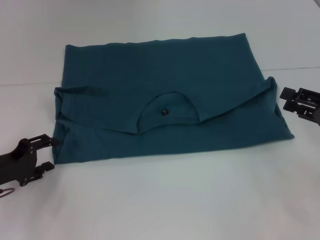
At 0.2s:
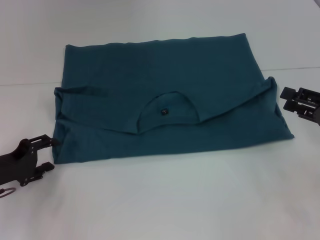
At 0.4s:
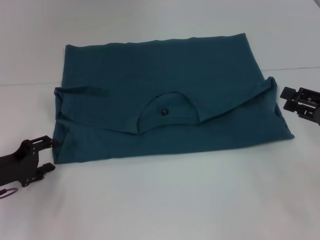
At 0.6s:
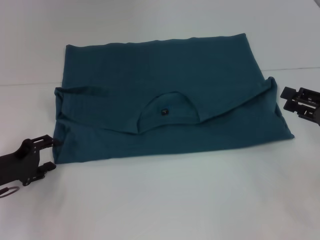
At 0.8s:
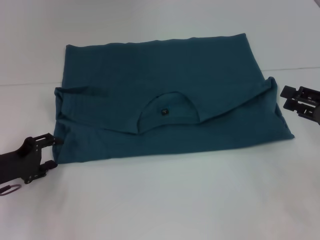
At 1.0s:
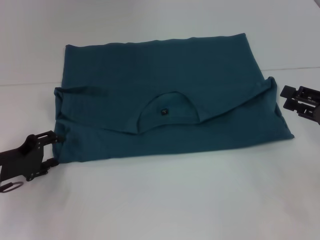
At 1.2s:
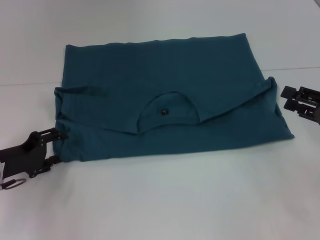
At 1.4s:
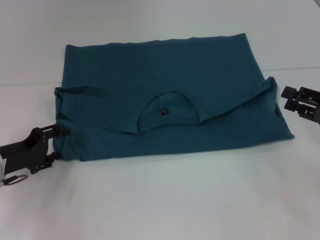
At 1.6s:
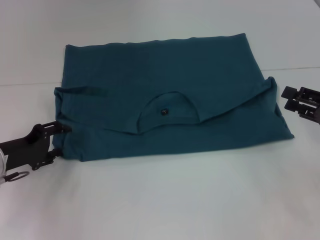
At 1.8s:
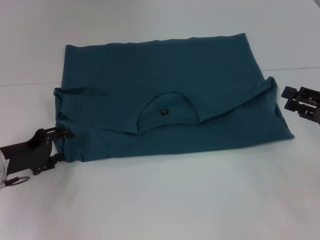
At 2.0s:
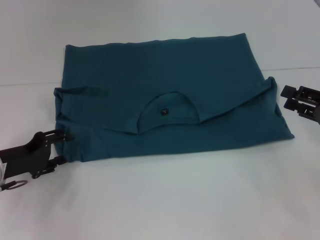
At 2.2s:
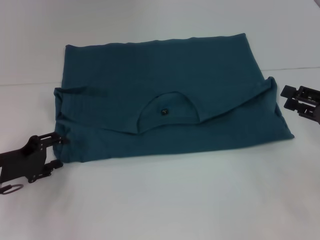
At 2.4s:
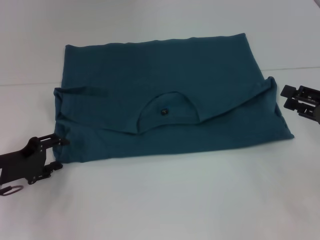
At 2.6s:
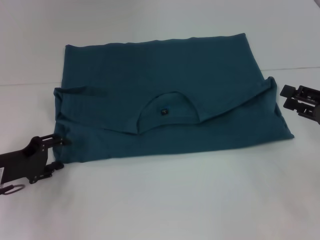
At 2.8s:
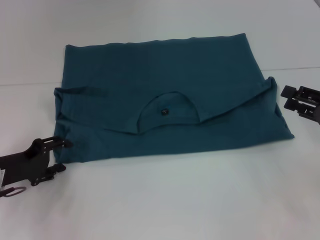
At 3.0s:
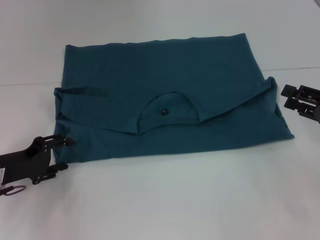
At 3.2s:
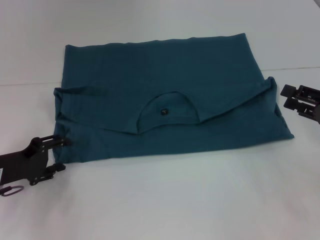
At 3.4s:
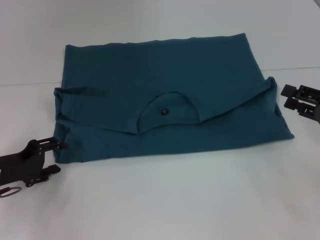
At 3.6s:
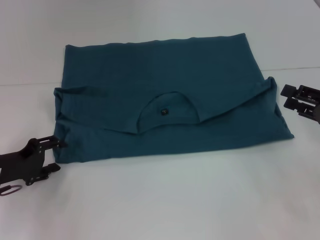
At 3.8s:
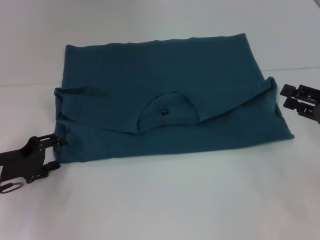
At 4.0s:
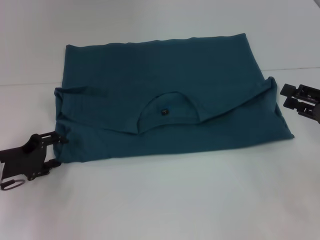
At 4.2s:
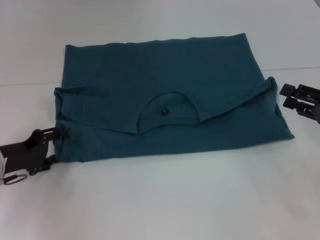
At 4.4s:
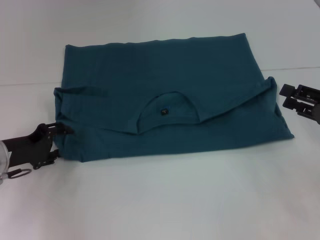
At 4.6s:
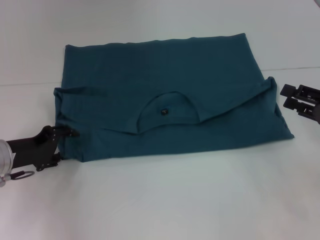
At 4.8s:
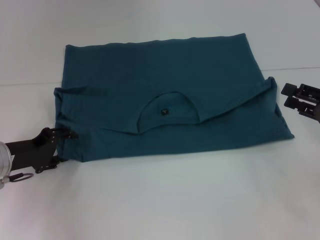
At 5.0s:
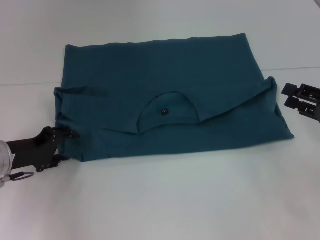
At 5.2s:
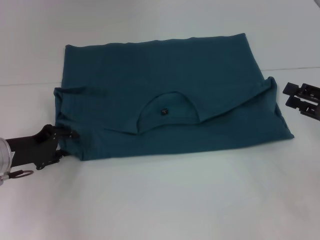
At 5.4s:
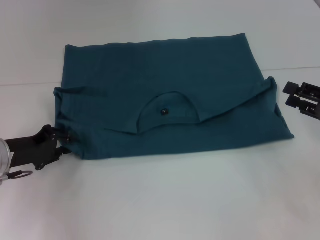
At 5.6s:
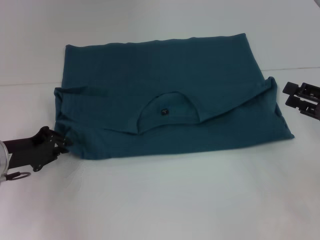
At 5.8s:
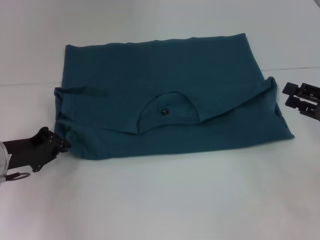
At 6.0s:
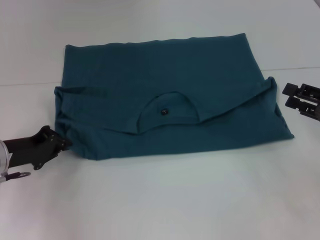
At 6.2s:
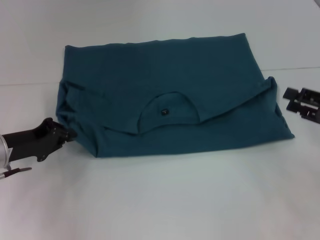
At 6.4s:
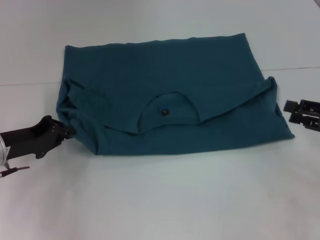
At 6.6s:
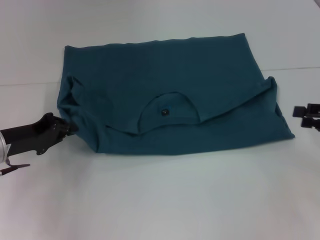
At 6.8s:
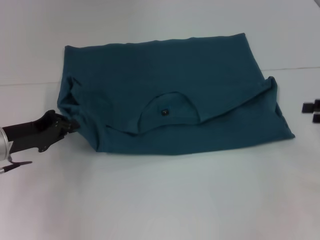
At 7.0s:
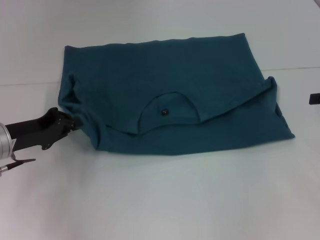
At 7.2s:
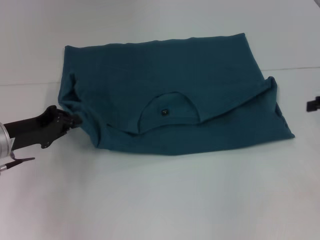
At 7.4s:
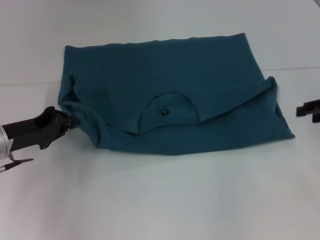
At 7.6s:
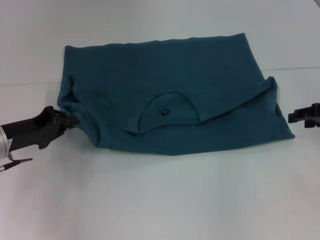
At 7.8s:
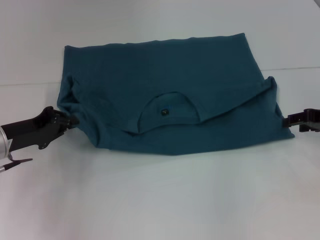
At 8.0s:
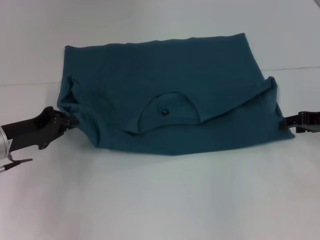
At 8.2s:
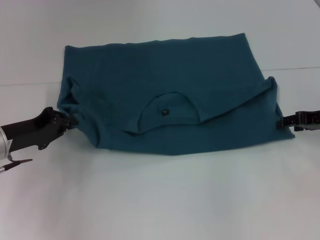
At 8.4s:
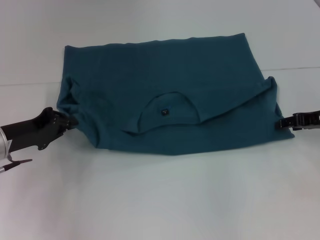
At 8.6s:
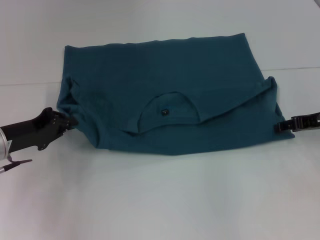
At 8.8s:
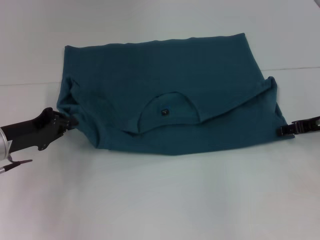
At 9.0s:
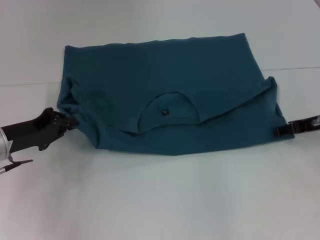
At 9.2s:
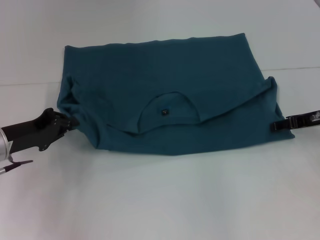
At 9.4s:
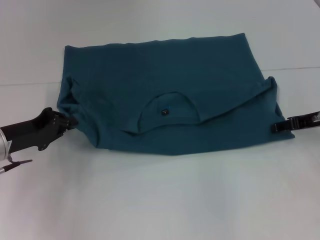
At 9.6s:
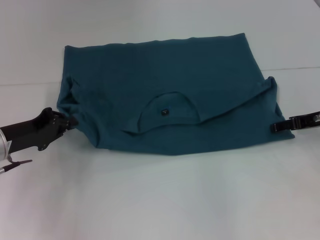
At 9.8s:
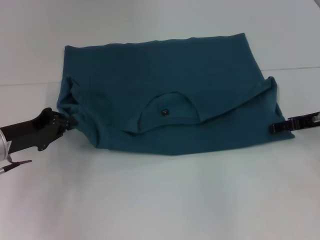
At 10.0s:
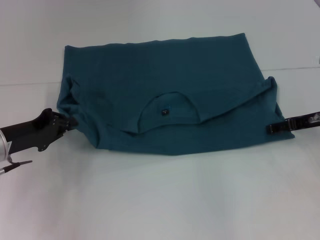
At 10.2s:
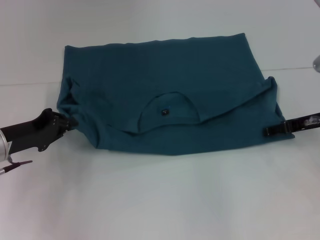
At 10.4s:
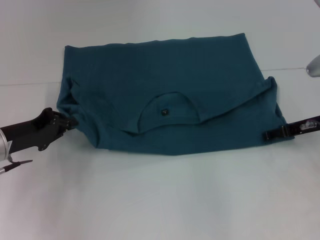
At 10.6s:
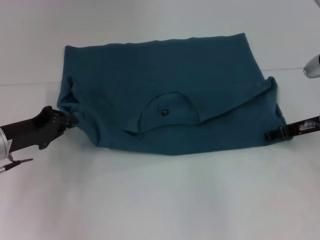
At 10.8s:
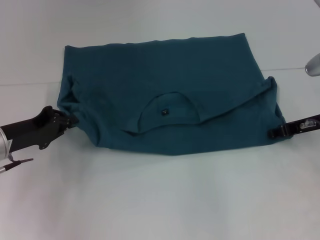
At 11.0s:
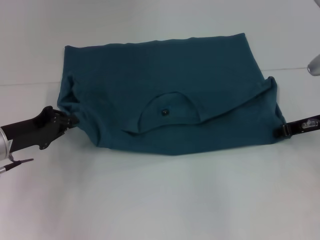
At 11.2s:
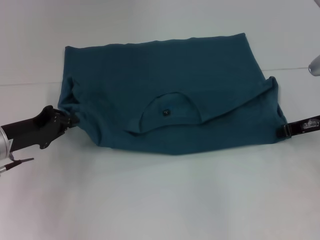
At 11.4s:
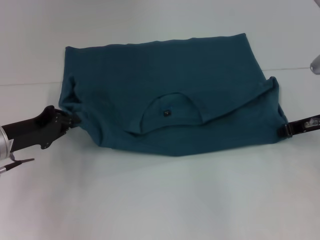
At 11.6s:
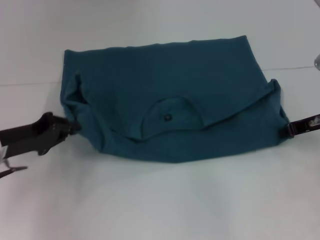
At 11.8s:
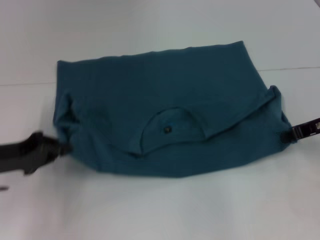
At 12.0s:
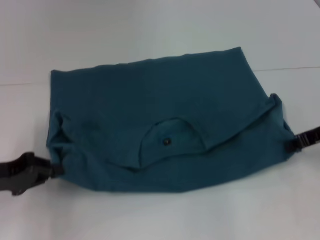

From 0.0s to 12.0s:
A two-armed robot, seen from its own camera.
From 0.0s to 4.4s: There are only small adjustments of the grippers.
From 4.4s to 6.0s: The left gripper closes.
From 6.0s to 7.6s: The right gripper moves forward, approximately 5 cm.
From 7.6s to 9.0s: The right gripper changes place by some 5 cm.
From 9.0s to 10.4s: The grippers move only a little.
From 10.4s to 12.0s: The left gripper heads backward, covering about 5 cm. The right gripper moves some 5 cm, and closes up.

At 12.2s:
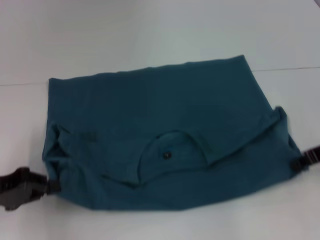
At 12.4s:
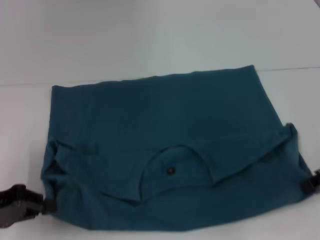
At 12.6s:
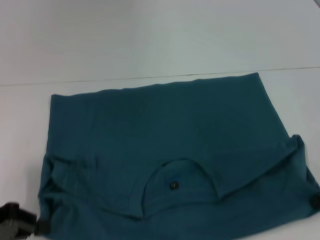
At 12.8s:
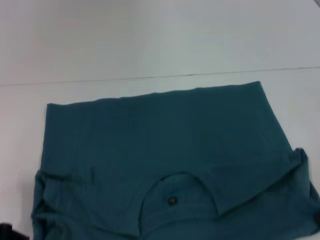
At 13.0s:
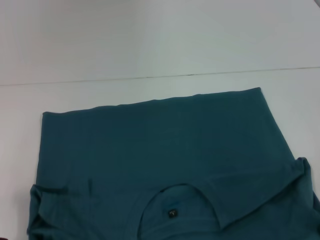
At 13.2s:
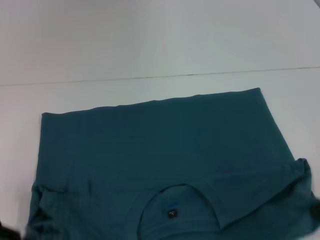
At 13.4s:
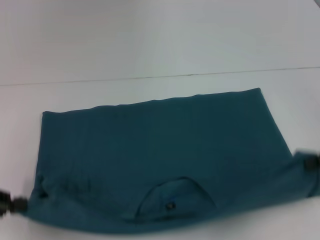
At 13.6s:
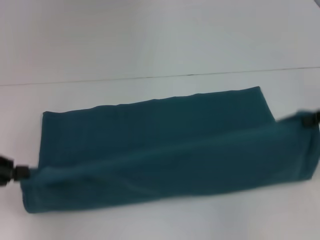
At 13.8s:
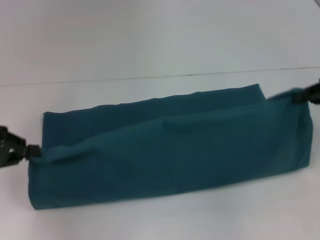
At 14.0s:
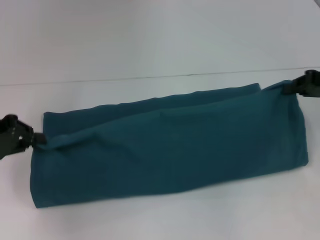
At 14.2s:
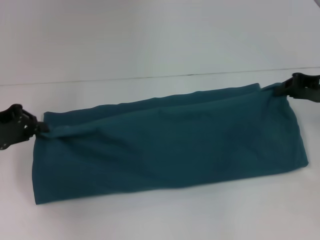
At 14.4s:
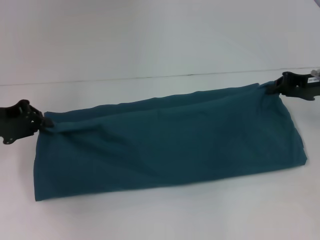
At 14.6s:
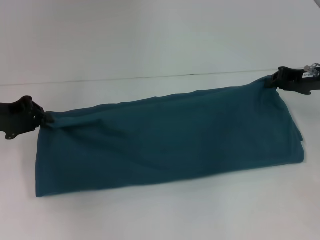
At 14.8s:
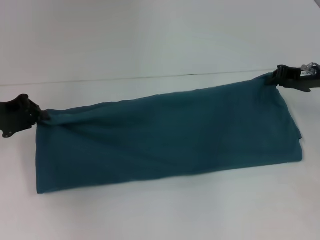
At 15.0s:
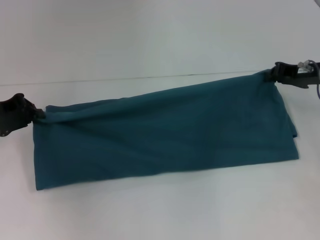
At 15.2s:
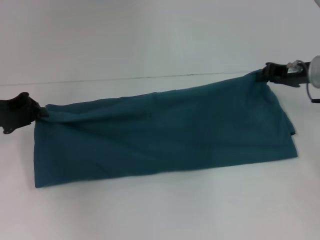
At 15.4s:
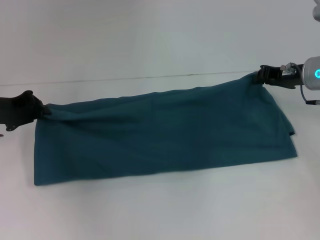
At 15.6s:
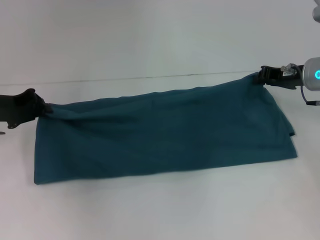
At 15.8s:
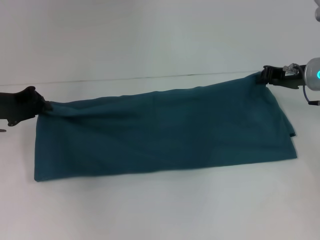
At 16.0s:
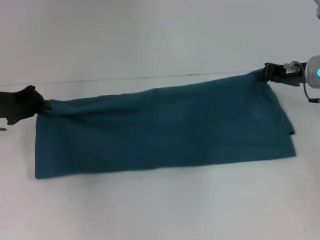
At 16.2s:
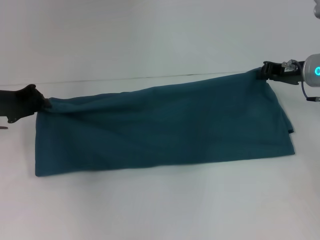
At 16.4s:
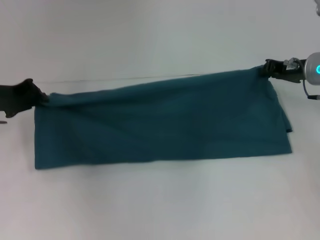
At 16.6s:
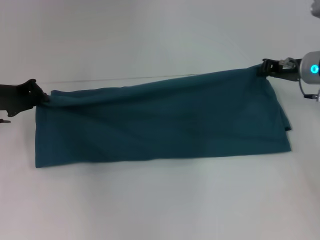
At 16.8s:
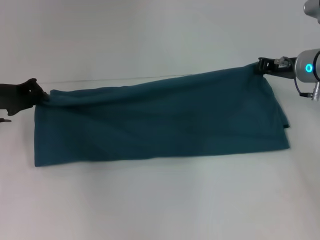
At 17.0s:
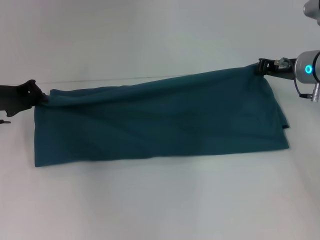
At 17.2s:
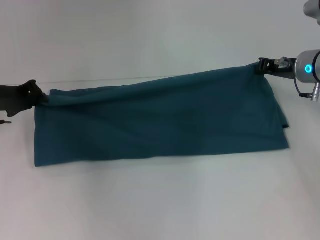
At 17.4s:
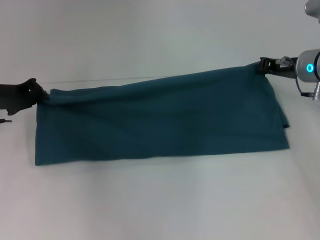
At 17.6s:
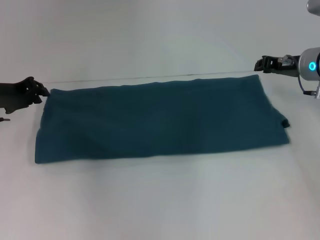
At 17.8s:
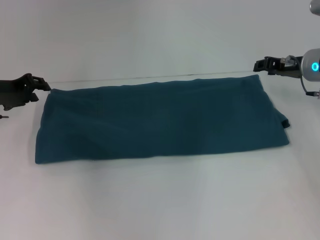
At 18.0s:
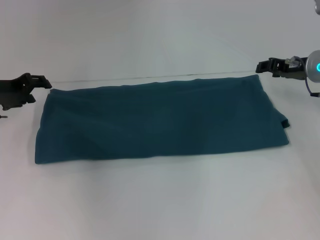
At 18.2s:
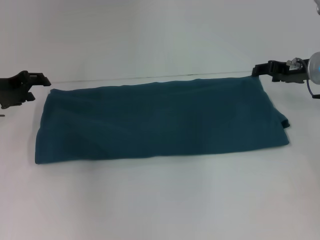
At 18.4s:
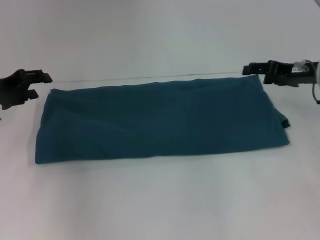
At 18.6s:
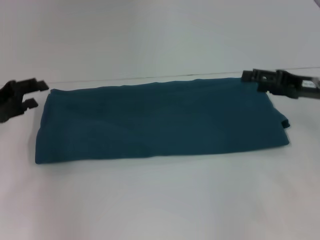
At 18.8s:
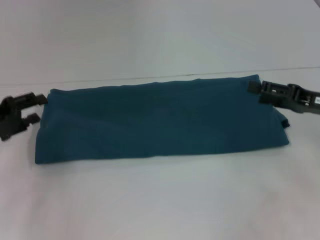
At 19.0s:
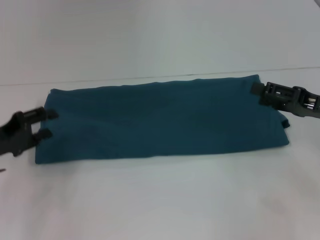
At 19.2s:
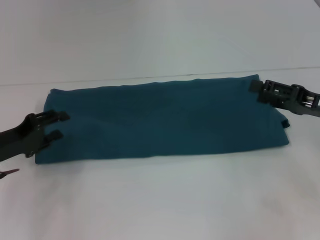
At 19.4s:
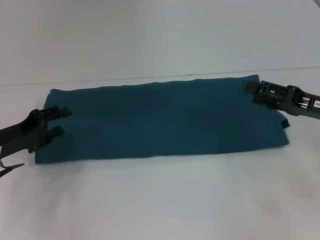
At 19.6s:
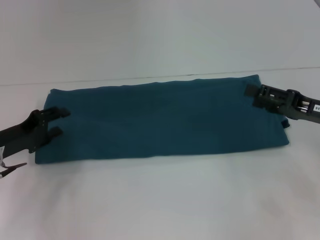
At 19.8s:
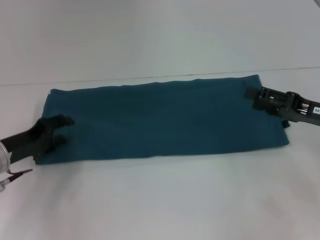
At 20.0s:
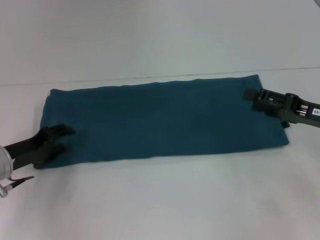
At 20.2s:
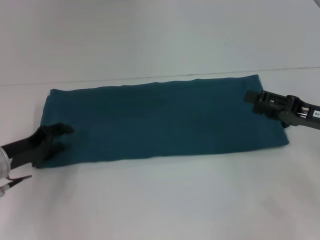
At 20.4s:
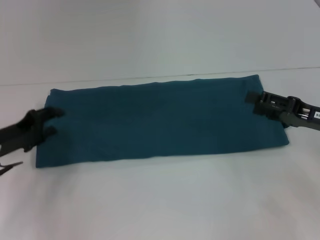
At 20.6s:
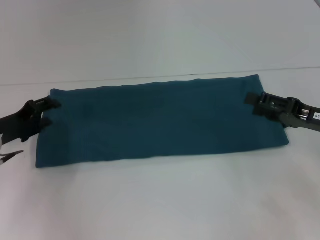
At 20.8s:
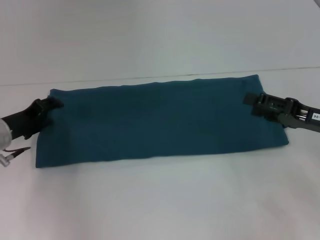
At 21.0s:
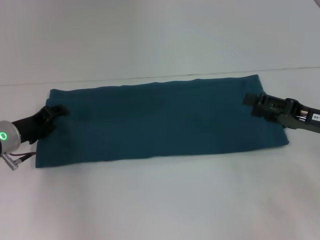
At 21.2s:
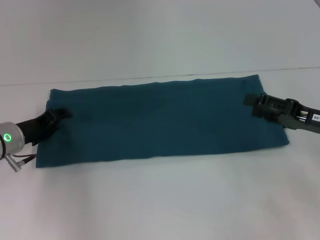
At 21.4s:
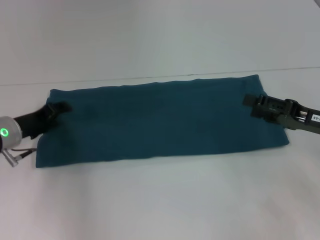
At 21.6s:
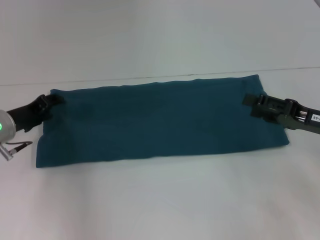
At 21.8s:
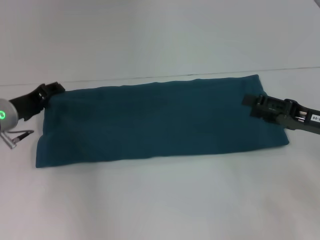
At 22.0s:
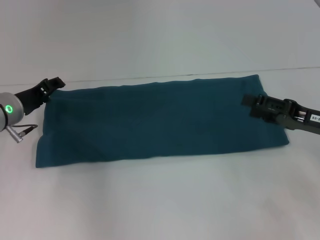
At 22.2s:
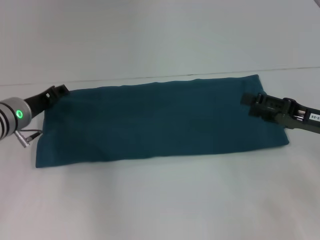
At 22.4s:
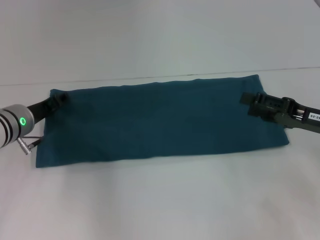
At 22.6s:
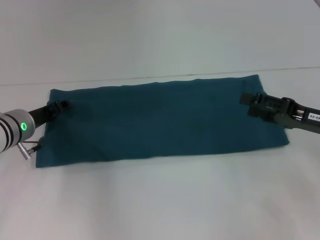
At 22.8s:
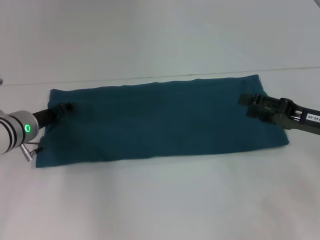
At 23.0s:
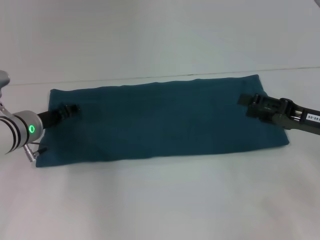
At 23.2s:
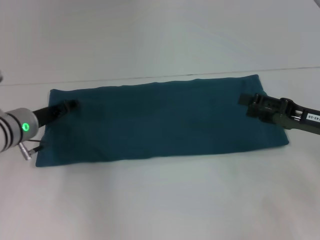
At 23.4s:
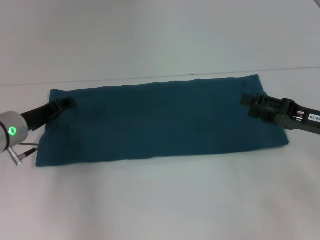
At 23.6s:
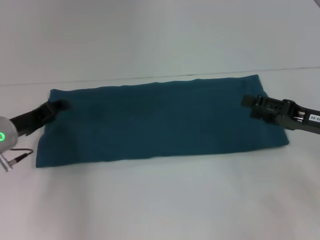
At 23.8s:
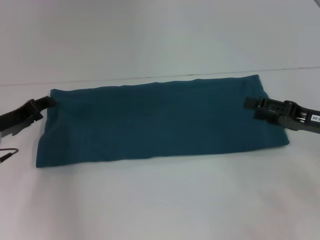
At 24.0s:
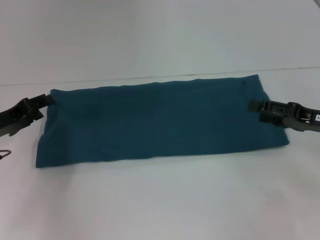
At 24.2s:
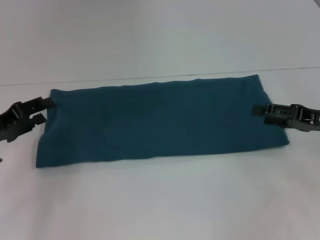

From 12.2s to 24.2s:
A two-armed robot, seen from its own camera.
Step, from 13.0s to 18.0s: Fold the clothes to the left.
Step, from 13.0s to 18.0s: Fold the clothes to the right.
From 12.2s to 13.8s: The left gripper heads upward, covering some 5 cm; the right gripper reaches roughly 5 cm backward, then returns.
From 13.8s to 15.2s: The left gripper goes roughly 5 cm forward, while the right gripper goes about 10 cm forward and to the left.
From 15.2s to 16.6s: The grippers move only a little.
From 16.6s to 18.2s: The left gripper opens up. Meanwhile the right gripper opens up.
From 18.2s to 19.8s: The right gripper heads backward, covering roughly 10 cm, and opens. Meanwhile the left gripper moves backward and downward, some 10 cm.
From 19.8s to 21.2s: The grippers make only small movements.
From 21.2s to 22.6s: There are only small adjustments of the grippers.
From 22.6s to 24.2s: The left gripper travels backward and to the left by about 10 cm.
